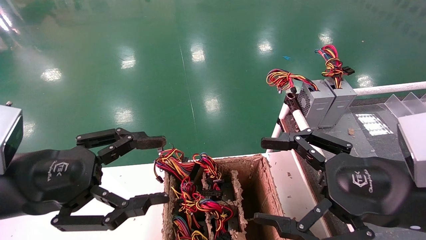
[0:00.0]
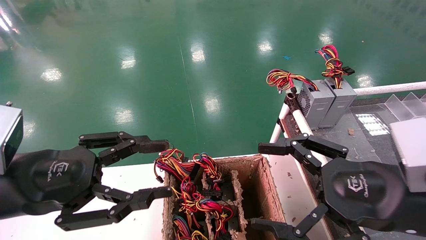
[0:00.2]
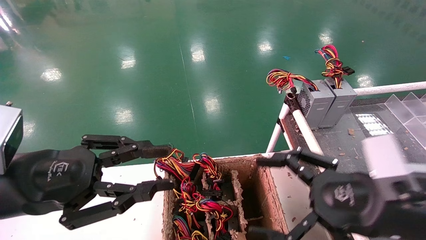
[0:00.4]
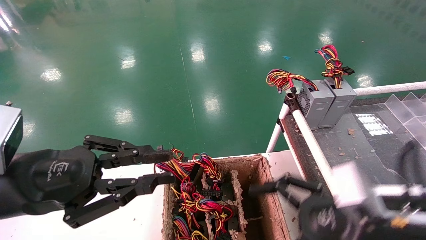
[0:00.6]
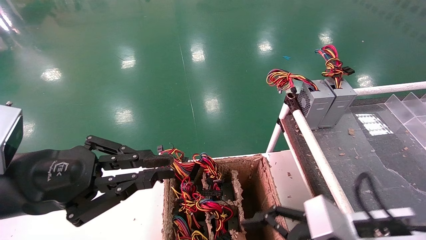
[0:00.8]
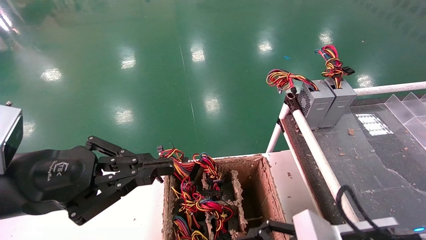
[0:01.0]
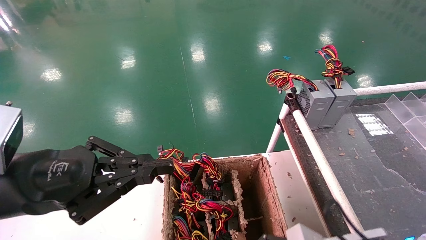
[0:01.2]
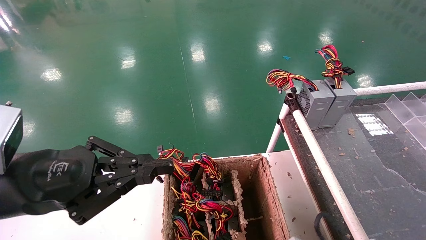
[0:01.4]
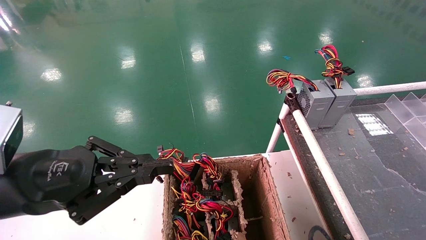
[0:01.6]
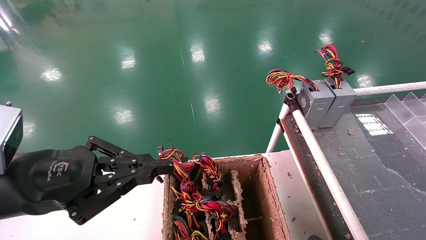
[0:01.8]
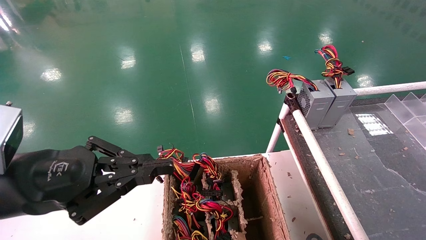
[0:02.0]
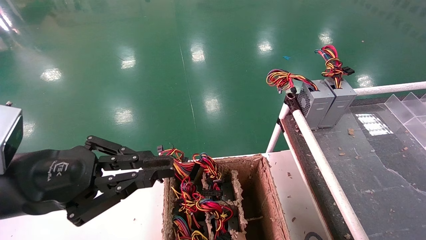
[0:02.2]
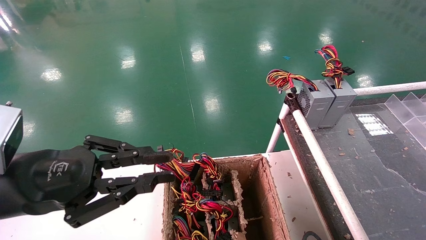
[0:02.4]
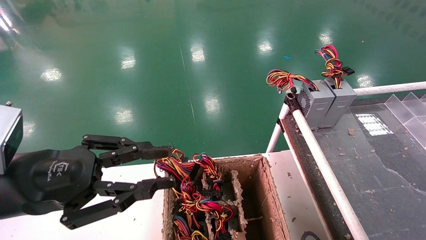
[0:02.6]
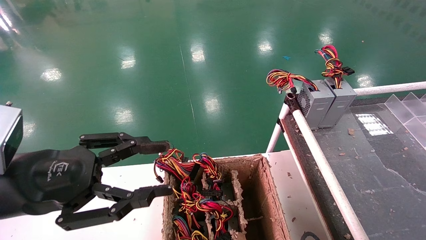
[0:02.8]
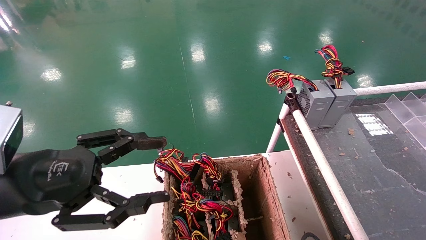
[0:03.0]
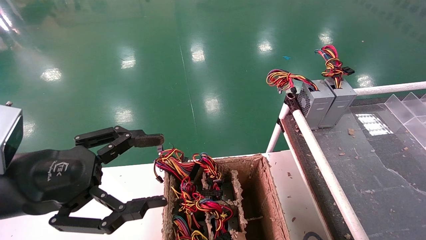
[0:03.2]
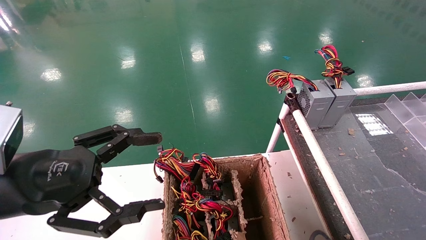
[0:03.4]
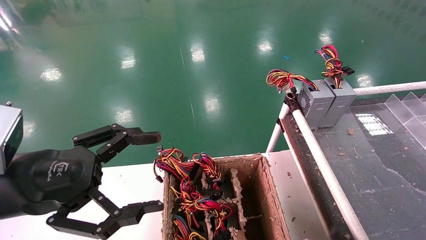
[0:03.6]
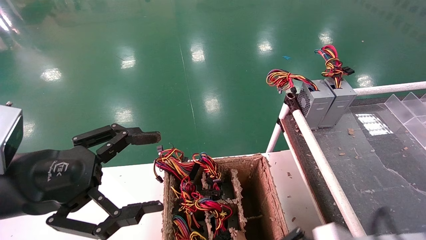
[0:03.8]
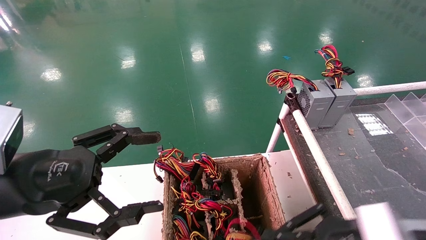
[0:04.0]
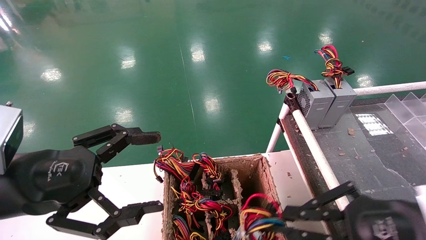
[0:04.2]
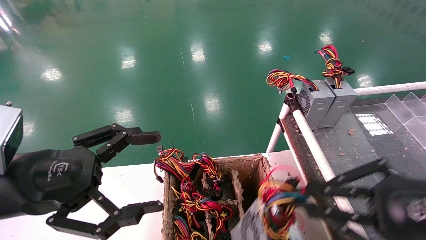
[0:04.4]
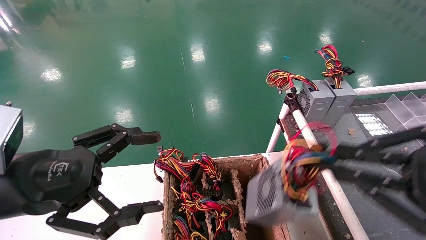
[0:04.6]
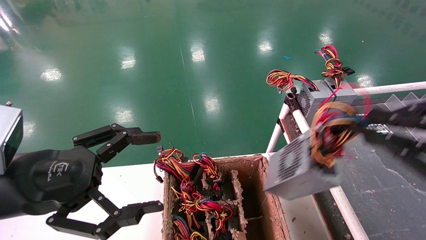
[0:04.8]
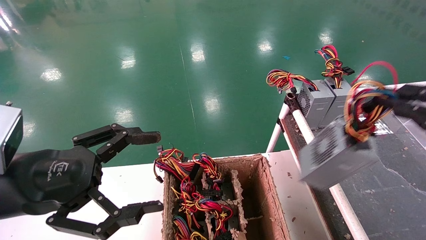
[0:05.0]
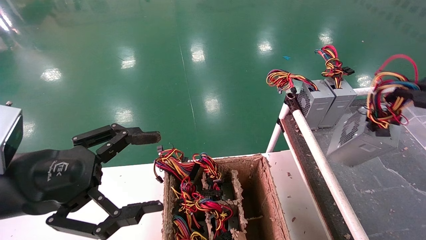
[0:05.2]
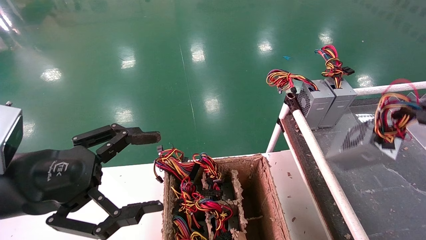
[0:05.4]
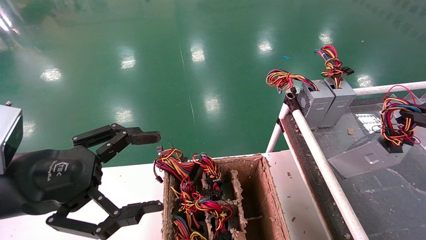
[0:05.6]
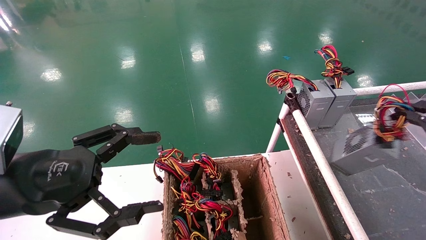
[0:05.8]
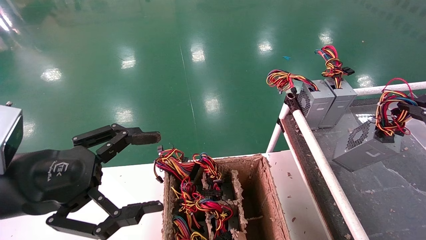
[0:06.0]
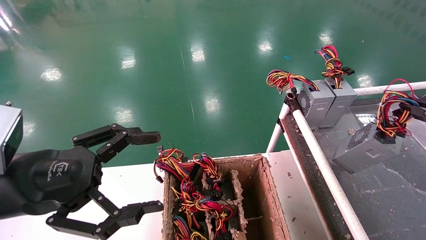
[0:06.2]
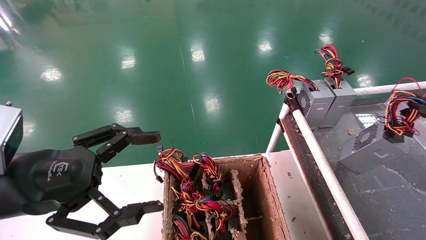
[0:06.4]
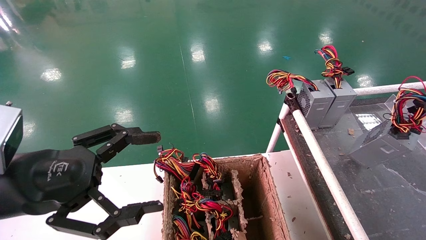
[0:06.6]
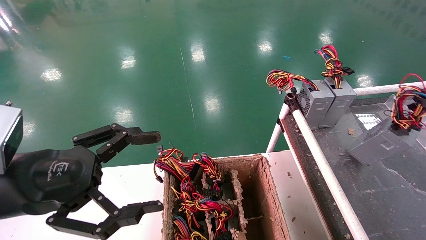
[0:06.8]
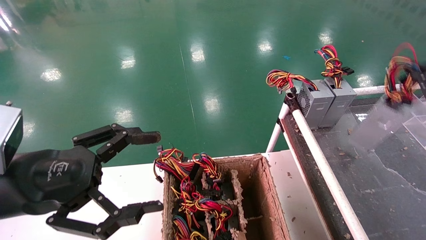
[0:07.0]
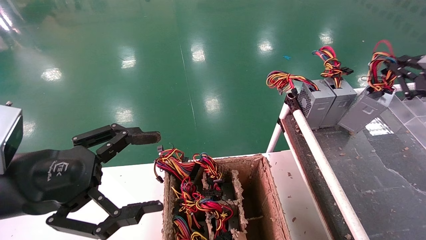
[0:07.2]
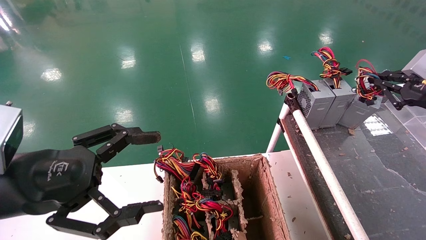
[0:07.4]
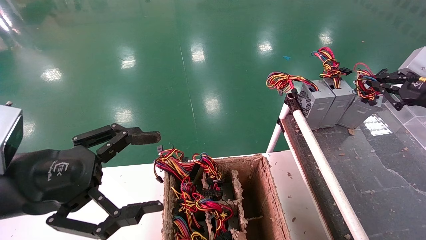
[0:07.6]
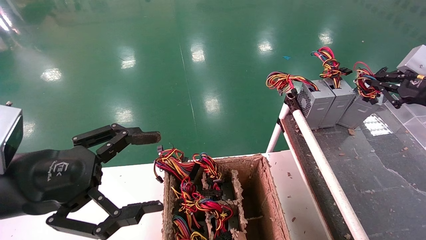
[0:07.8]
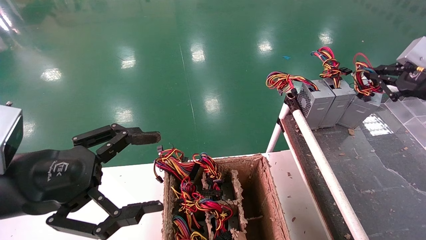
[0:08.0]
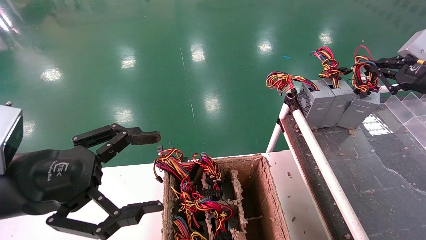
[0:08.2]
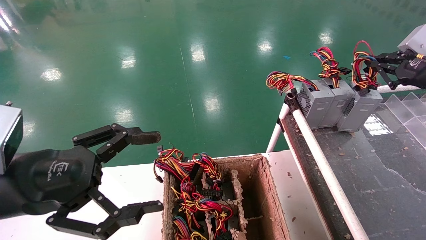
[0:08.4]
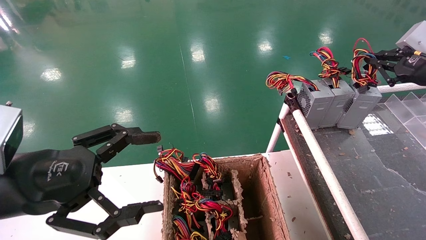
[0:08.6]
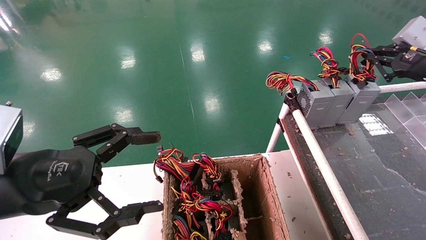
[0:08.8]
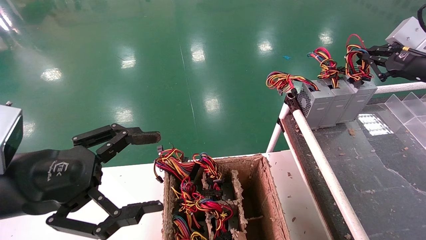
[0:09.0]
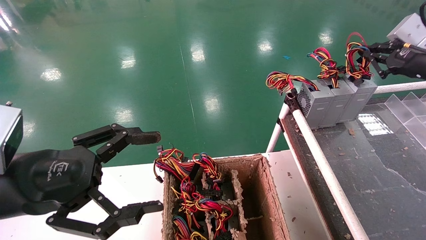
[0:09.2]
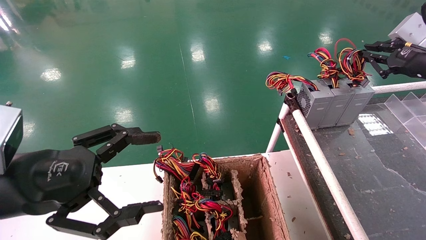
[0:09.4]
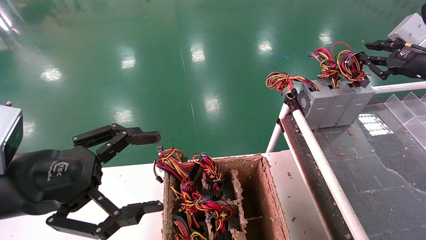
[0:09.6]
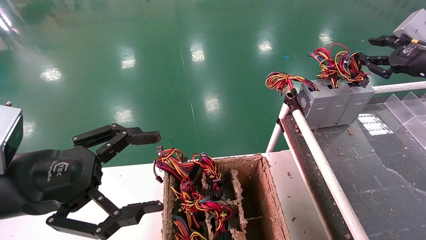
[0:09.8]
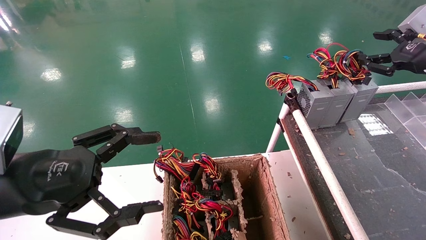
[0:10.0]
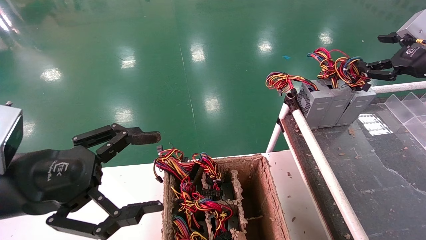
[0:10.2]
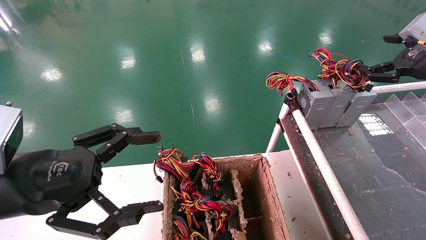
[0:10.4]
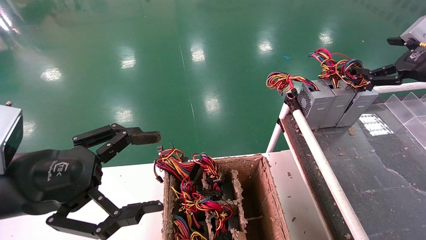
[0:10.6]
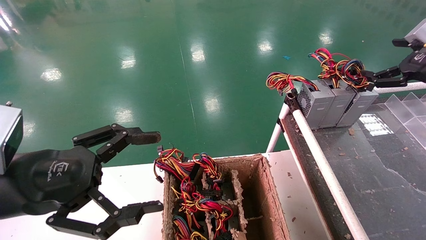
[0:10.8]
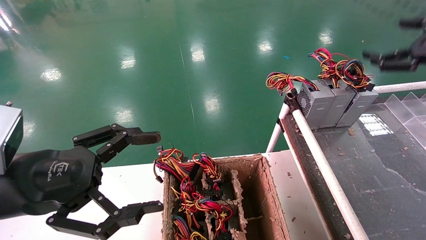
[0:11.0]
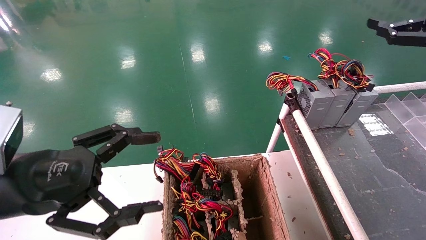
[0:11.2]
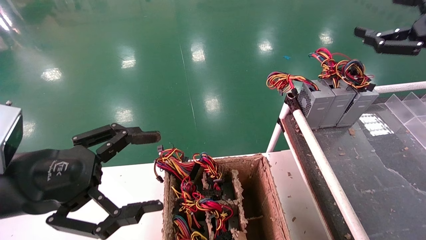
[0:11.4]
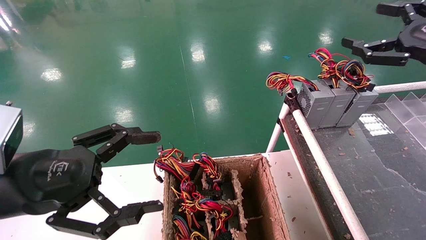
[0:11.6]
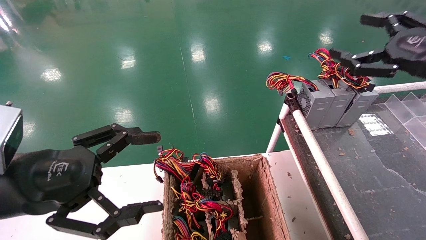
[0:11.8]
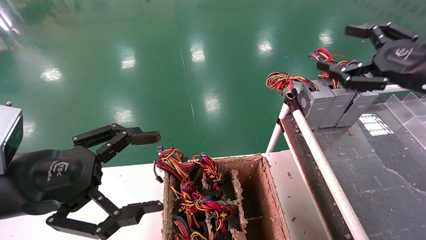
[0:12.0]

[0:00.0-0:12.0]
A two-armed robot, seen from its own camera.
Step, 0:00.8 to 0:03.8: Grab and lift the power supply from the large box.
Step, 0:04.0 to 0:10.4: Place the power supply on the operating table.
0:00.0 to 0:01.6: The left gripper closes up, while the right gripper shifts about 15 cm downward.
0:01.6 to 0:03.0: The right gripper closes. Meanwhile the left gripper opens its fingers.
0:03.0 to 0:04.4: The left gripper opens its fingers. Meanwhile the right gripper goes approximately 20 cm upward and to the right.
0:04.4 to 0:06.0: The right gripper shifts roughly 15 cm to the right.
0:06.0 to 0:07.6: The right gripper travels forward by approximately 15 cm.
0:07.6 to 0:09.0: The right gripper changes place by about 5 cm.
0:09.0 to 0:10.4: The right gripper opens its fingers.
0:10.4 to 0:12.0: The right gripper is displaced backward and to the left by some 10 cm.

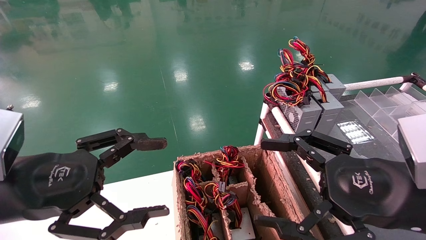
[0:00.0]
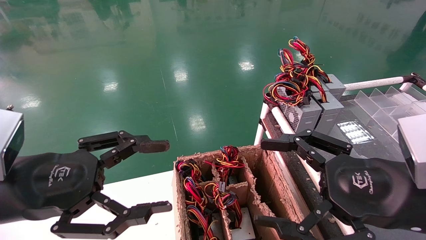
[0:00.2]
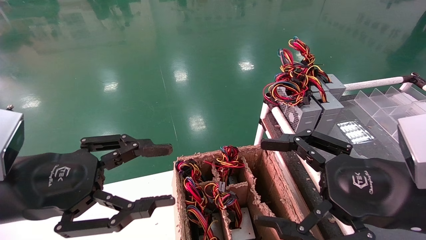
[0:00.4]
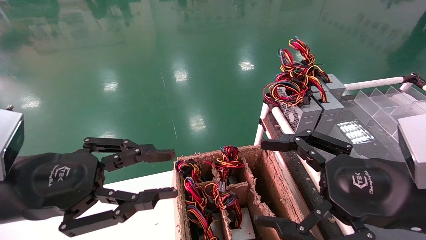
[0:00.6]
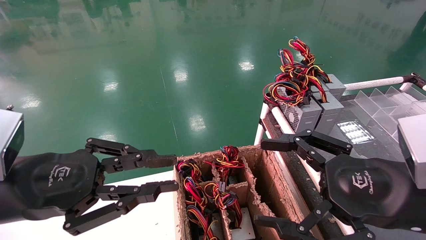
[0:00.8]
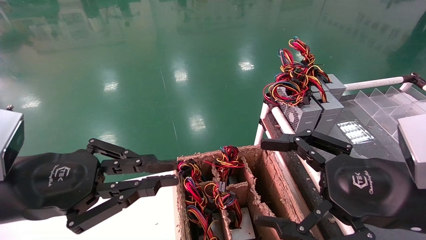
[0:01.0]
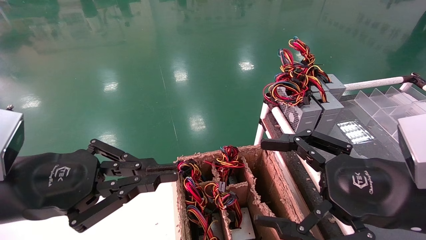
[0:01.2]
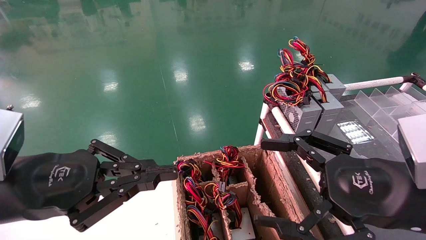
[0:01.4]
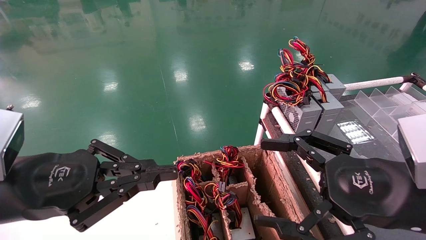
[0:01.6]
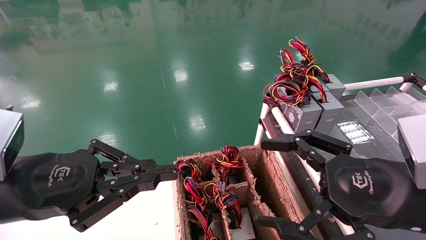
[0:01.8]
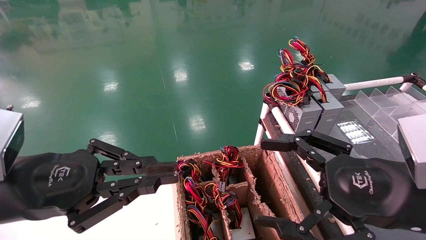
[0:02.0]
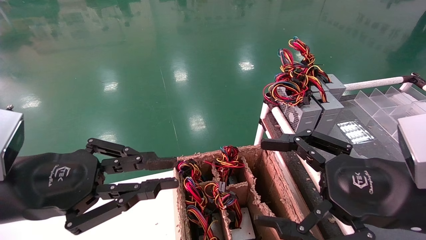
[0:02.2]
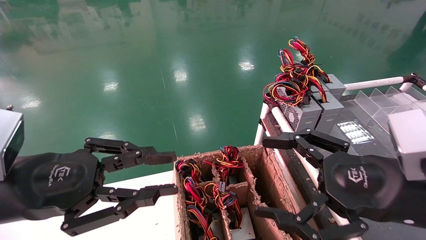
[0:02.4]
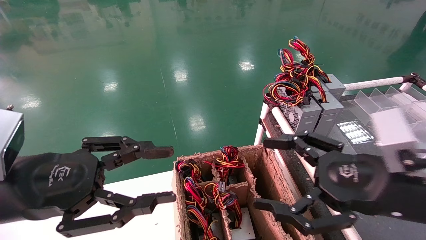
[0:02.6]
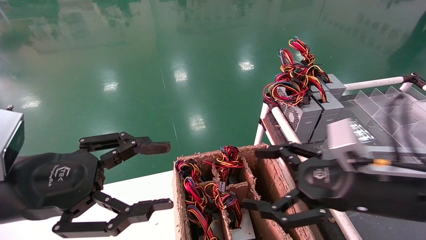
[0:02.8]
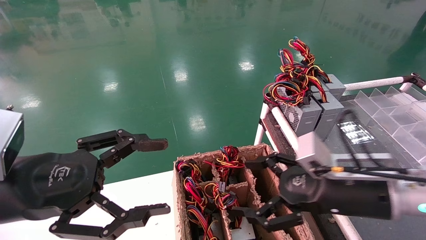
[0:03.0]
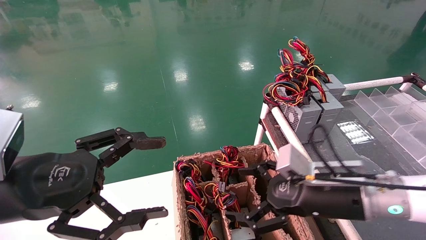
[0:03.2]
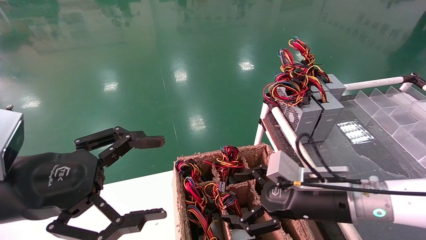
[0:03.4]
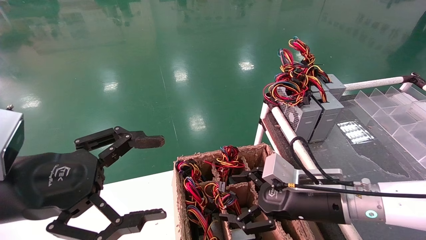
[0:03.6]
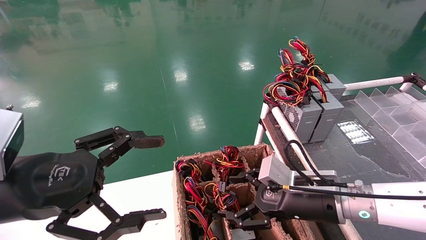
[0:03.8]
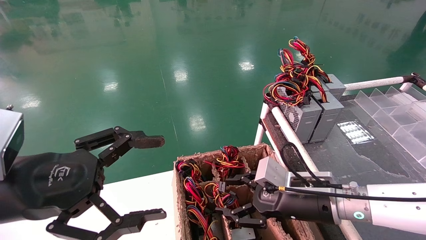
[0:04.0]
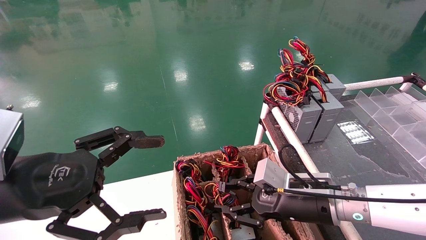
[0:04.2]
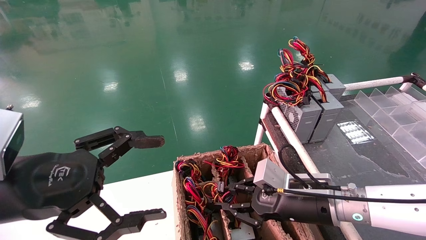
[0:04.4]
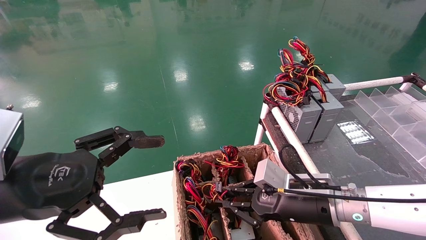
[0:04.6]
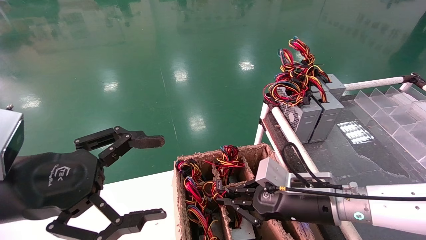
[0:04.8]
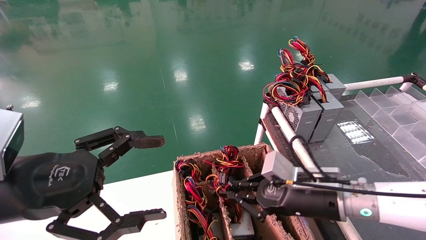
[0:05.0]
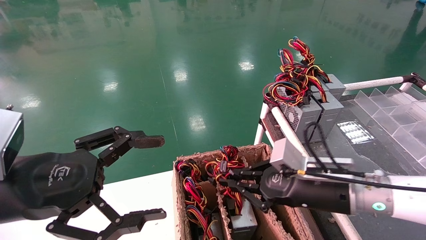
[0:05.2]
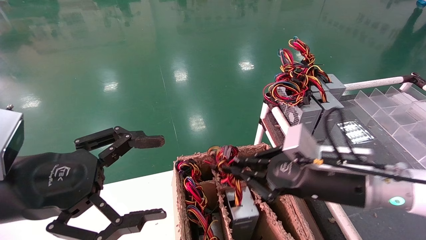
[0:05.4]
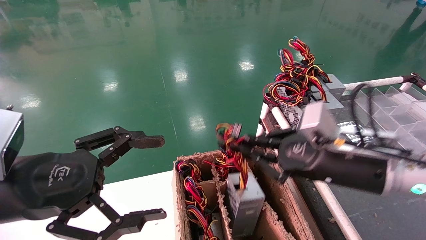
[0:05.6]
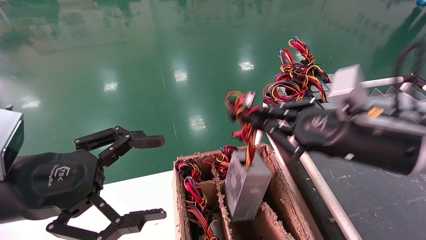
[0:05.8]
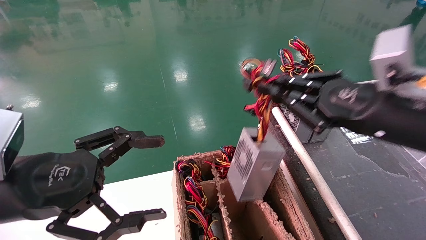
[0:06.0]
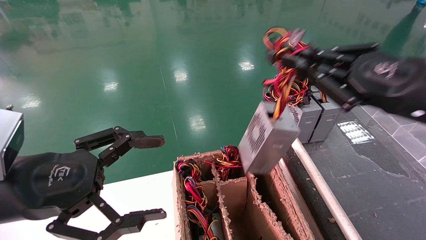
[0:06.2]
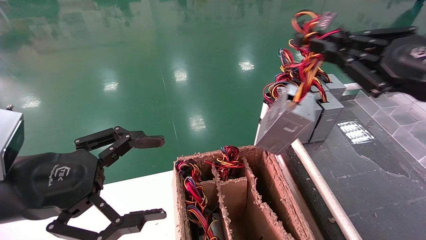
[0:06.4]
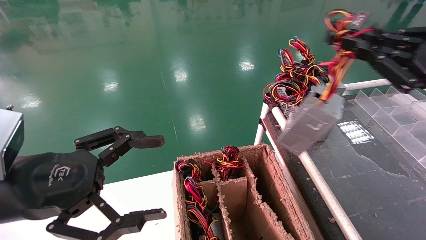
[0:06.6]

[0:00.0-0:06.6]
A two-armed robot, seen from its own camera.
Step, 0:01.4 to 0:04.8: Grab and lift the power supply from the large box.
0:00.0 to 0:01.6: The left gripper closes up.
0:01.6 to 0:03.2: The right gripper moves forward and downward, roughly 10 cm. Meanwhile the left gripper opens.
0:03.2 to 0:05.0: The right gripper closes.
0:05.0 to 0:06.6: The right gripper moves upward, to the right and backward, about 25 cm.
